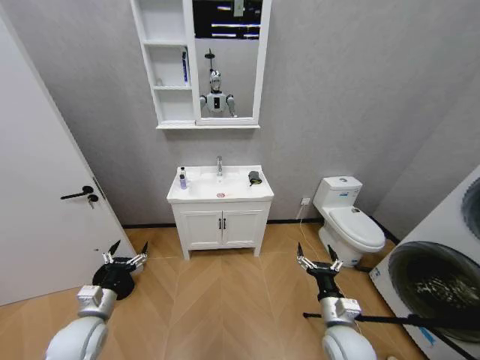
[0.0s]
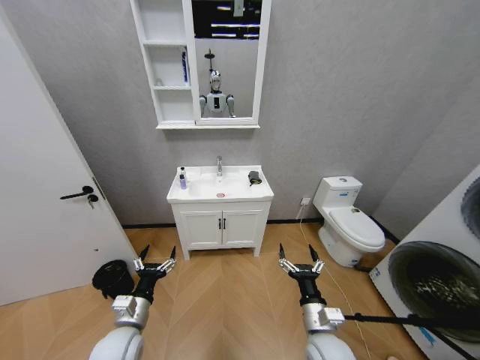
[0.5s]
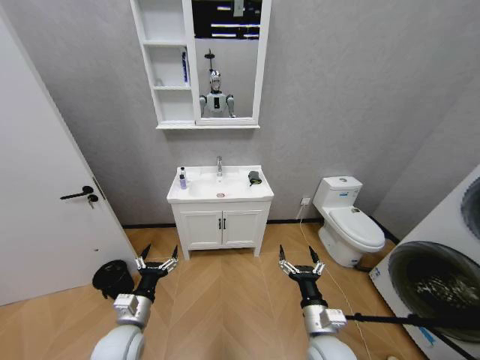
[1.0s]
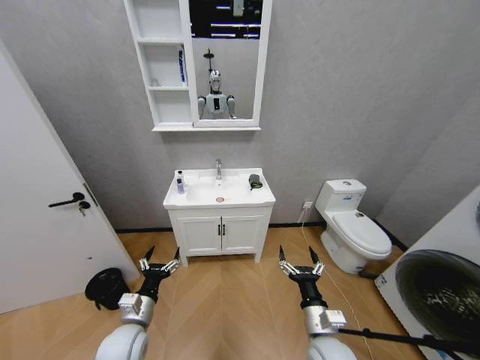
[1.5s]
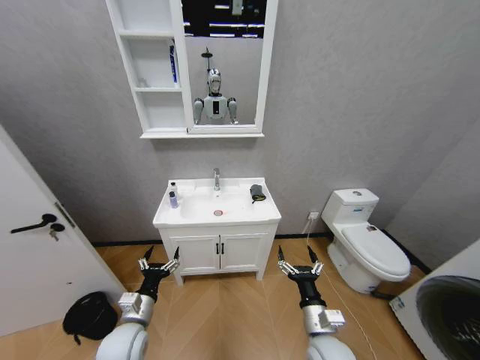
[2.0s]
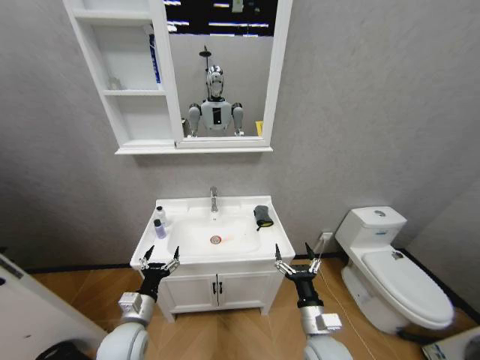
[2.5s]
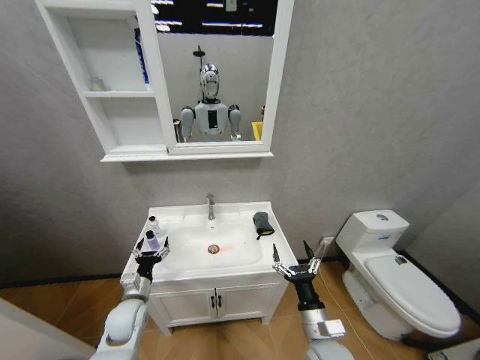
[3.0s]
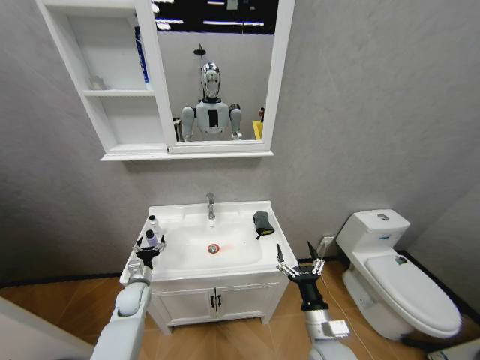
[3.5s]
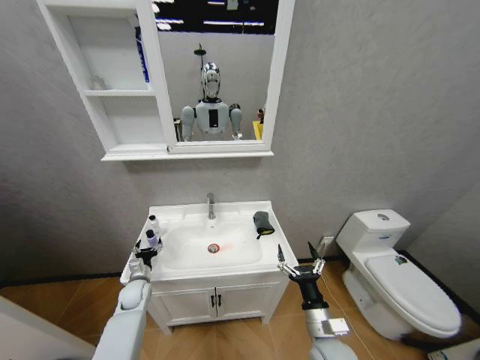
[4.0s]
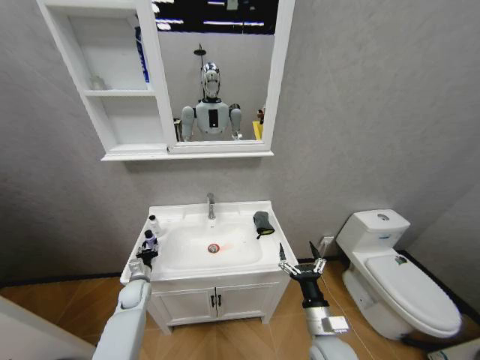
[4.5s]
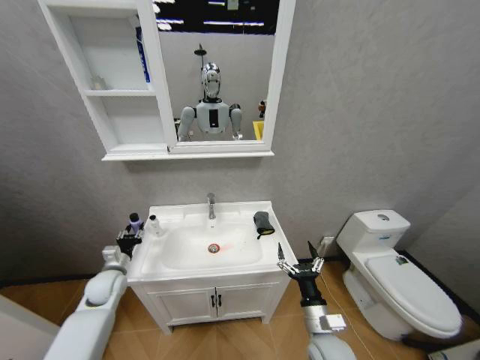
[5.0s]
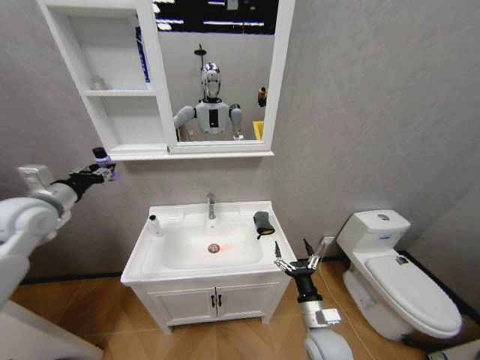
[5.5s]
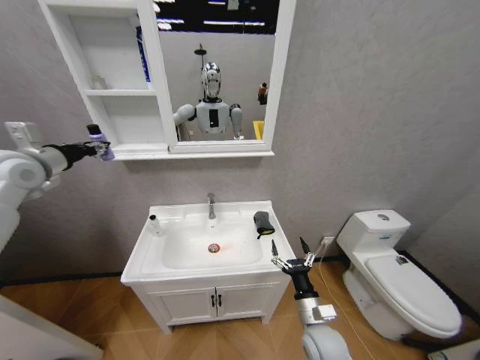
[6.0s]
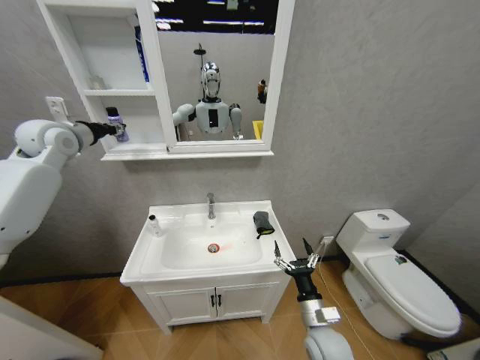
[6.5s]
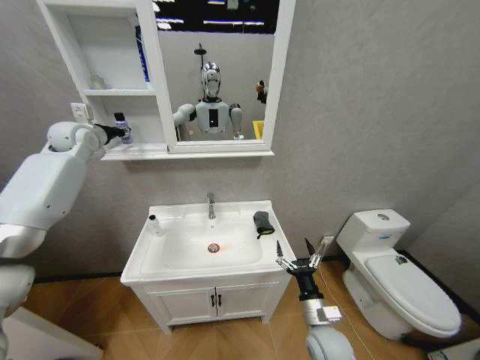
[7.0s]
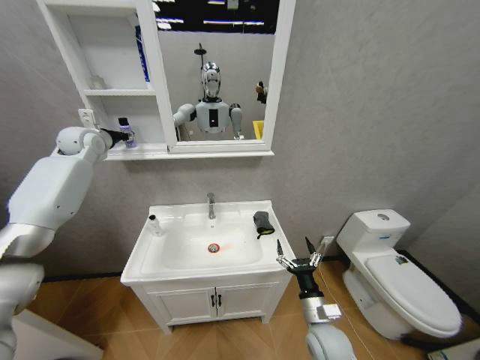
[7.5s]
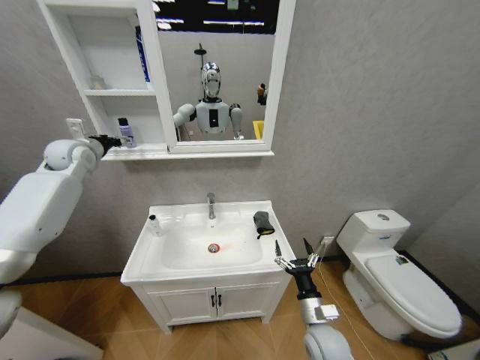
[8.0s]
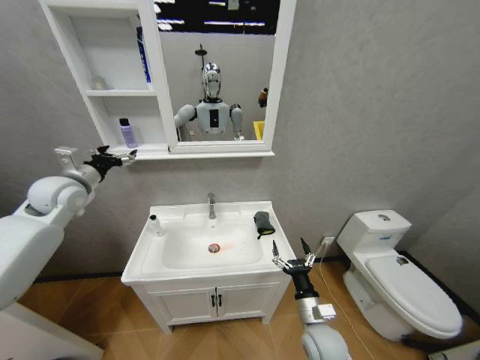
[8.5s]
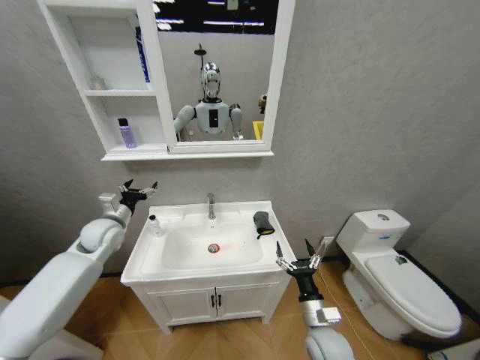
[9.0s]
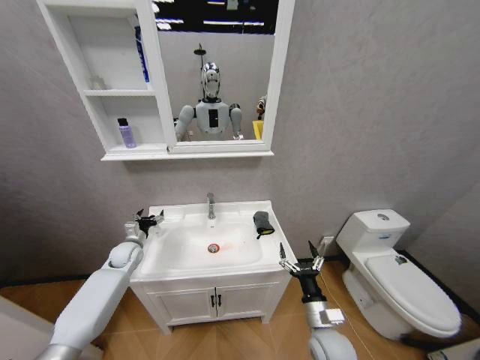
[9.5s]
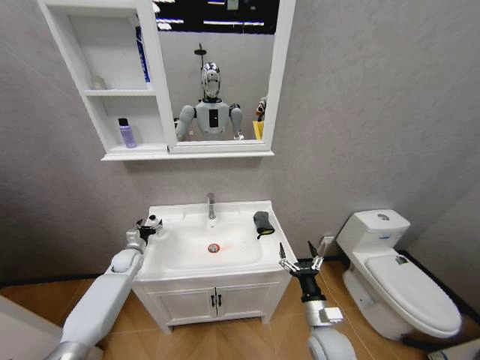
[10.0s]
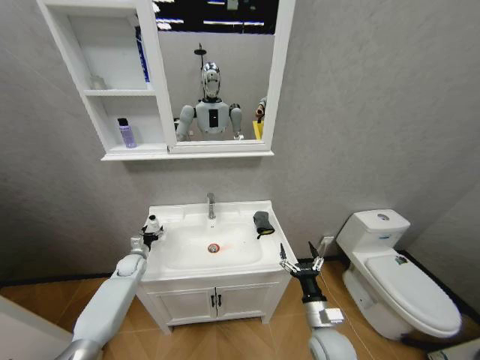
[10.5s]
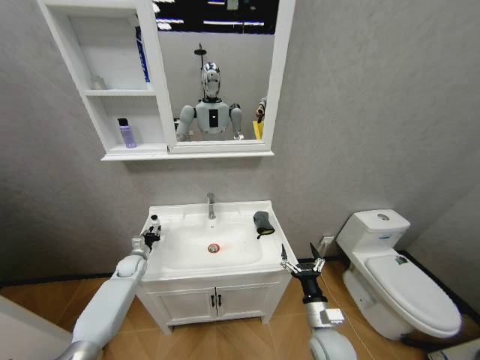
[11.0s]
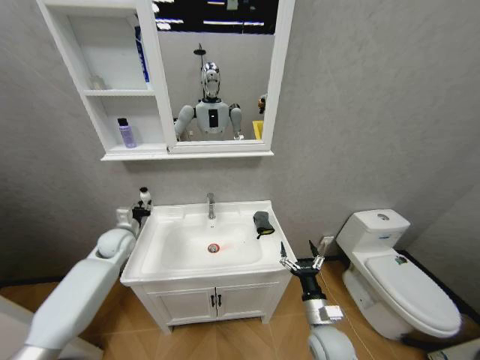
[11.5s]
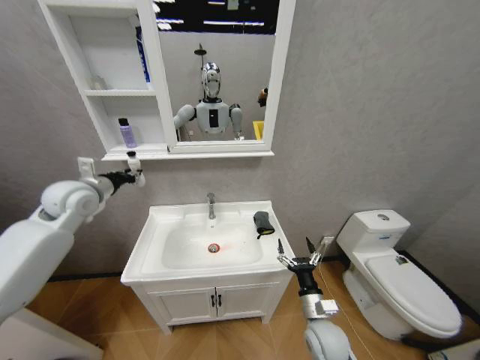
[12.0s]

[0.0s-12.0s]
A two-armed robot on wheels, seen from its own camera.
Task of the whole recording: Move facial cleanser and shampoo from washbasin to cabinet, then wipe washbasin with towel.
2.0s to 4.0s: The left gripper is displaced forward, downward and to the left by some 20 cm.
4.0s to 6.0s: The left gripper shifts about 50 cm upward, and closes.
6.0s to 8.0s: The left gripper travels forward by roughly 15 cm, and opens up.
8.0s to 10.0s: The left gripper moves downward, about 40 cm.
10.0s to 12.0s: The left gripper shifts about 30 cm upward, and closes up.

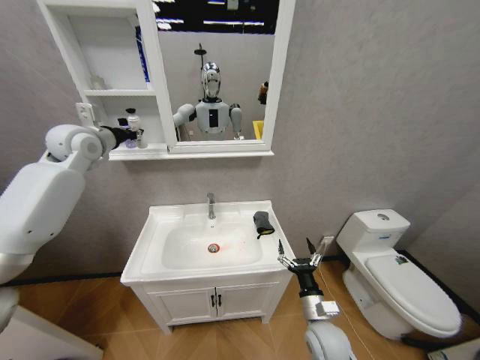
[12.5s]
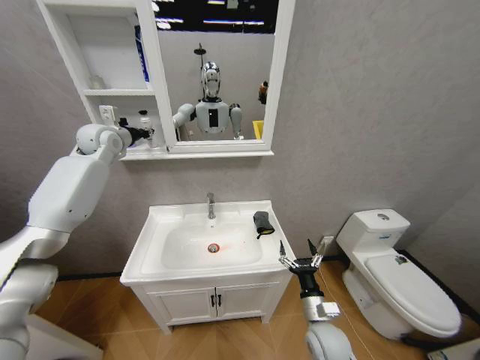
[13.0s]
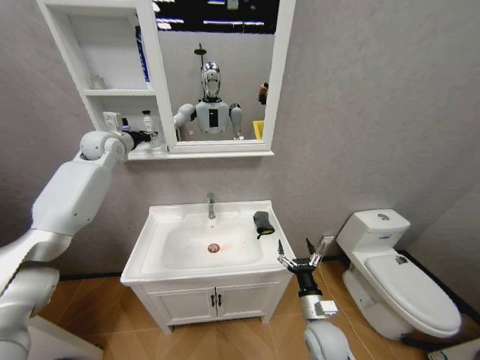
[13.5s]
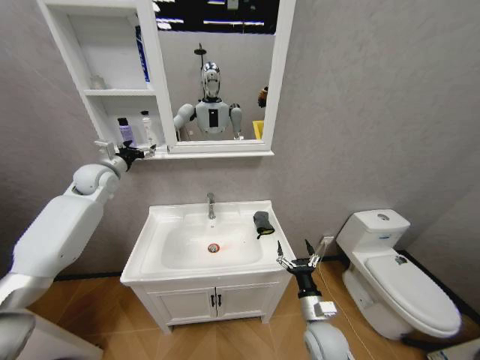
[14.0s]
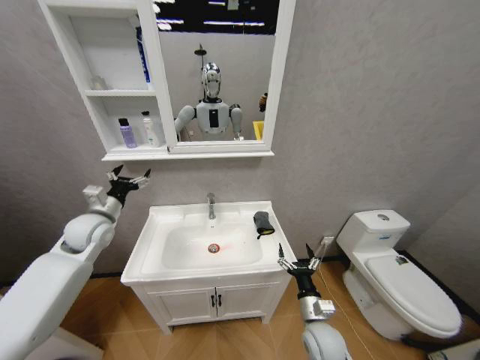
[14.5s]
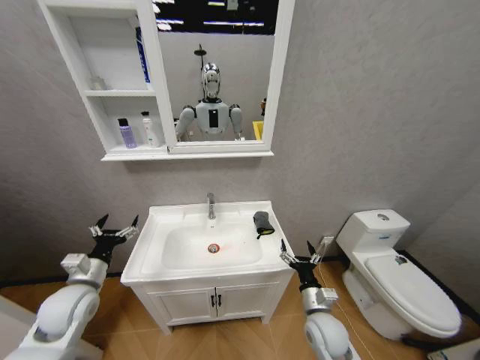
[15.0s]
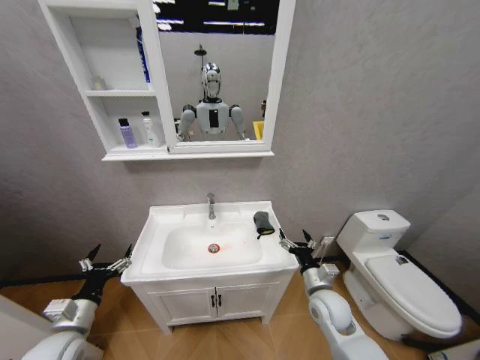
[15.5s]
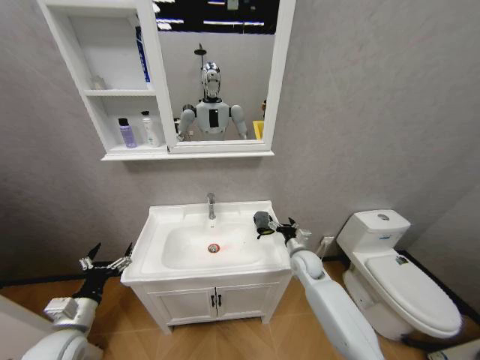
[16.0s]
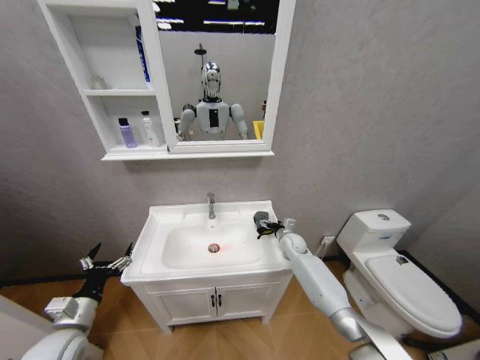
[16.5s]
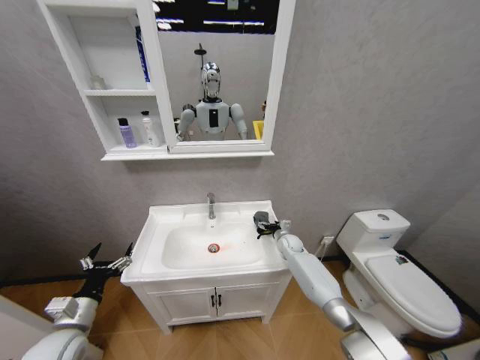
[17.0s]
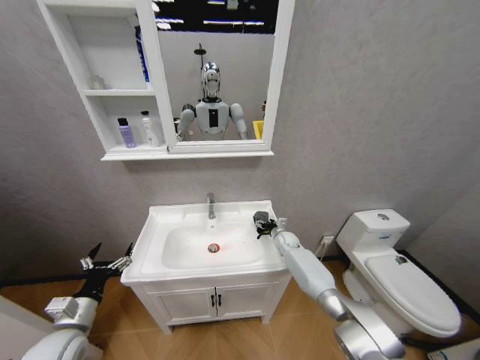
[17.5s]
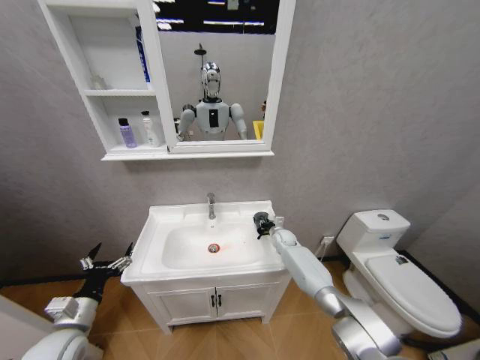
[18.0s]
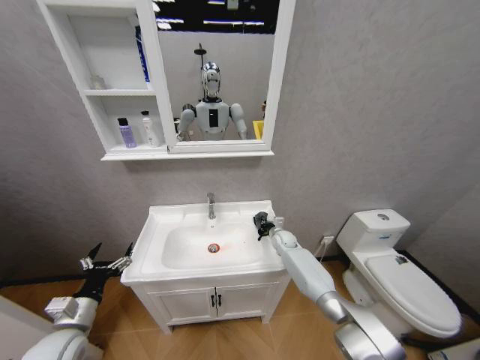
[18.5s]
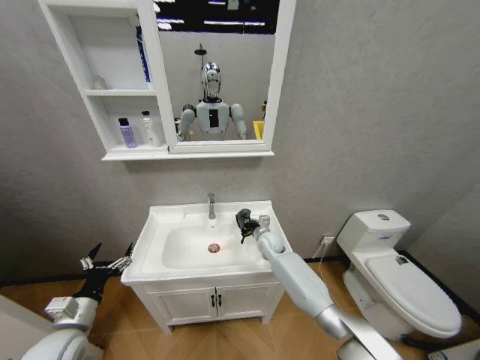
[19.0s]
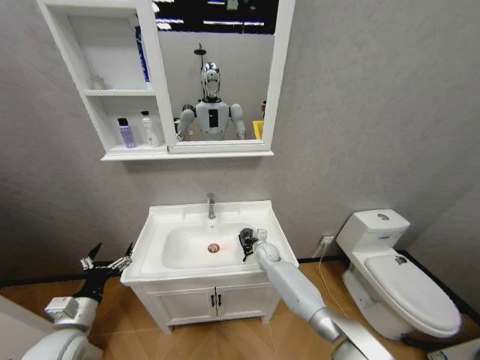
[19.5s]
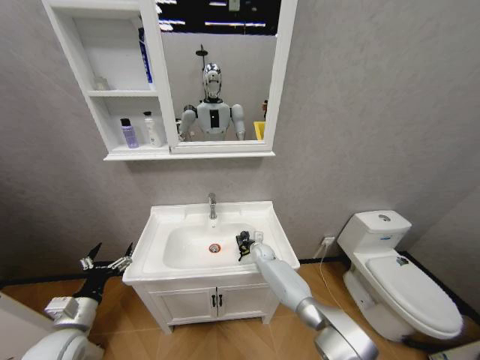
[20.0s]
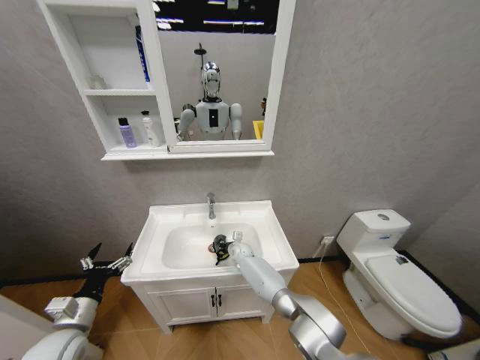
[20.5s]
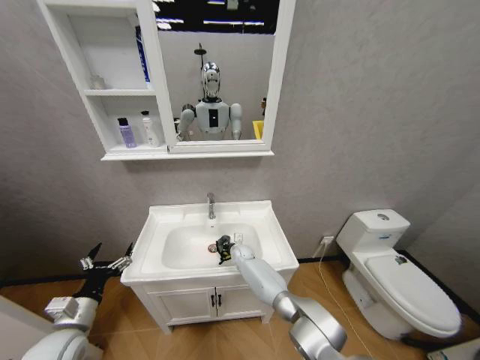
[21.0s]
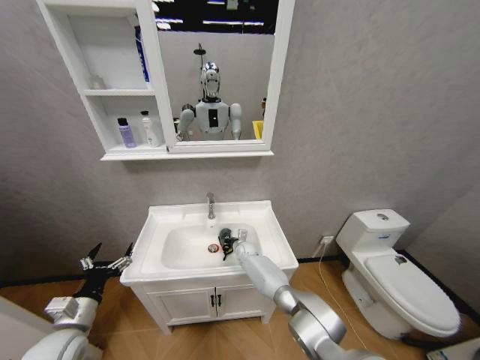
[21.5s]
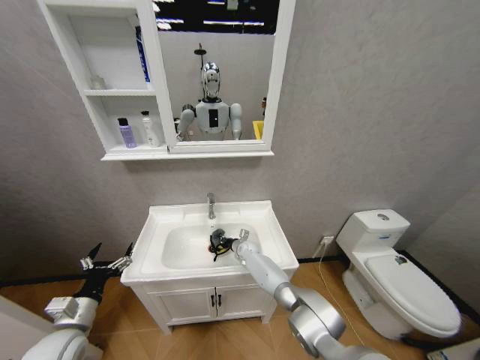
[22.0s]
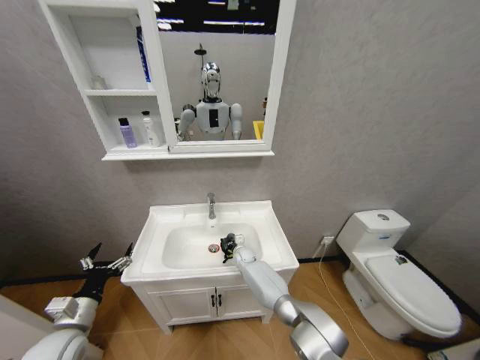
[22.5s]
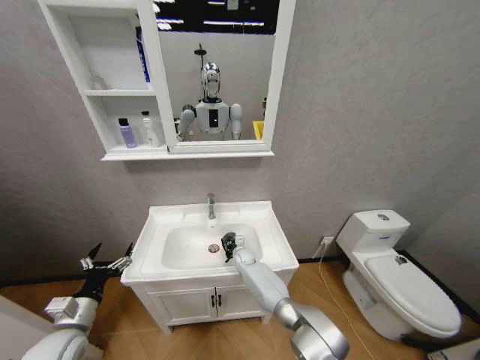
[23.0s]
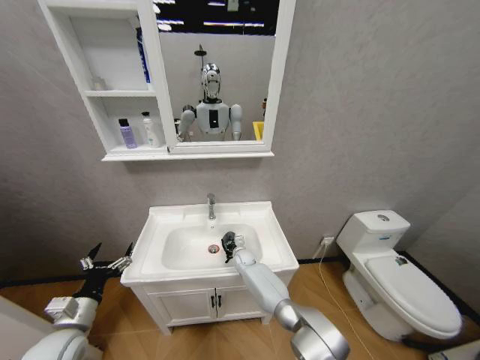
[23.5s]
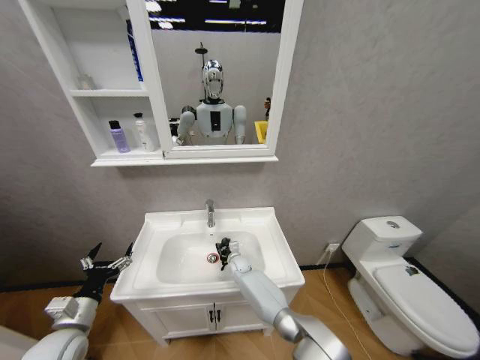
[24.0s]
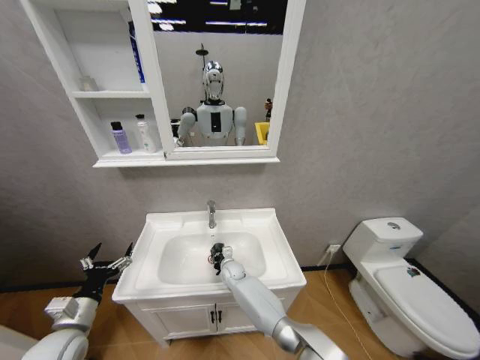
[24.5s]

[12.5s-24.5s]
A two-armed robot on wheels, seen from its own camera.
Task of the whole recording: Move facial cleanser and shampoo from washbasin to cabinet, then wipe washbasin with towel.
12.5s to 14.5s: The left gripper is displaced downward and backward by approximately 20 cm, and opens.
14.5s to 16.5s: The right gripper heads forward, covering about 30 cm. Meanwhile the left gripper travels backward and downward by some 25 cm.
16.5s to 18.5s: The right gripper ends up approximately 5 cm from where it was, and closes its fingers.
18.5s to 20.5s: The right gripper is displaced to the left by approximately 20 cm.
22.5s to 24.5s: The right gripper heads backward and to the left, covering approximately 10 cm.

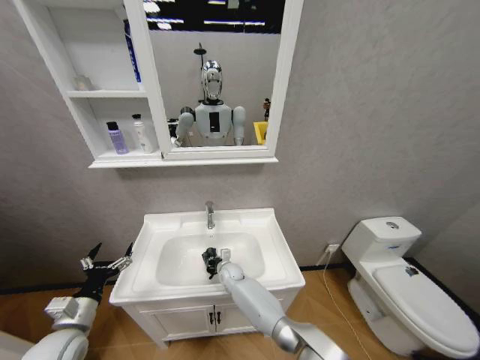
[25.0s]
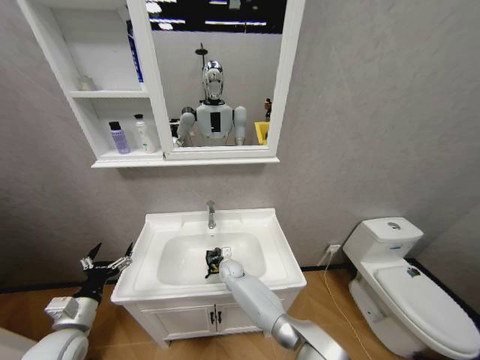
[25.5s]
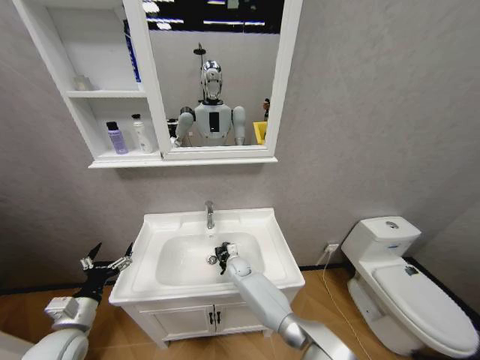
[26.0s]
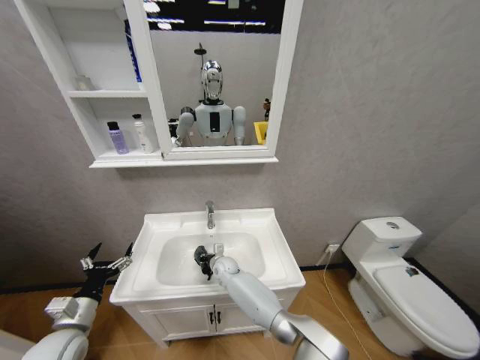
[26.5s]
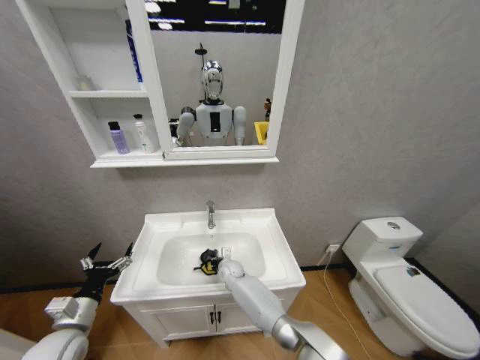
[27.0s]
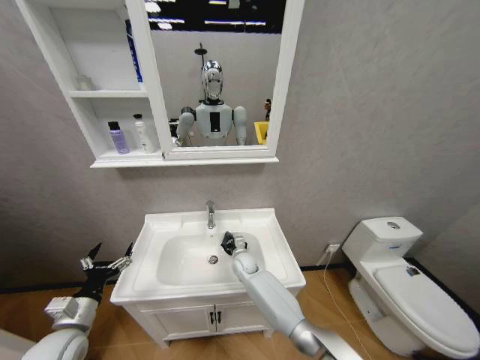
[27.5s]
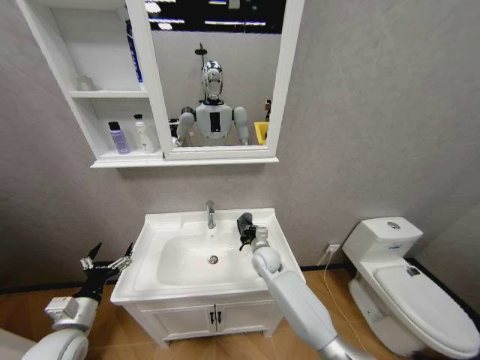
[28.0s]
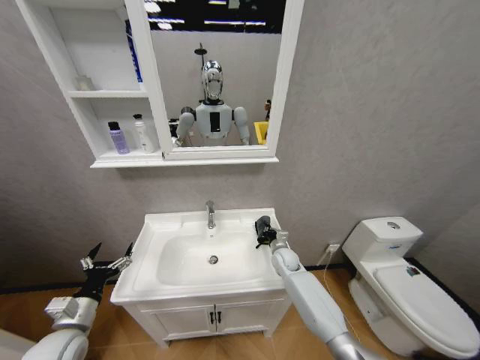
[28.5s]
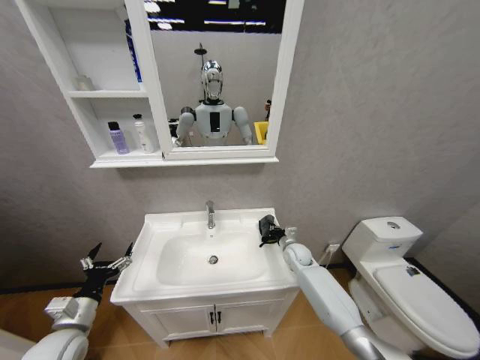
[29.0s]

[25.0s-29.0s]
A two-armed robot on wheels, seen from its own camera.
Task of the whole recording: Move facial cleanser and shampoo from washbasin to cabinet, then wipe washbasin with towel.
27.0s to 29.0s: The right gripper moves to the right, approximately 25 cm.
